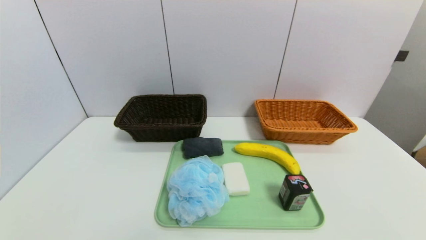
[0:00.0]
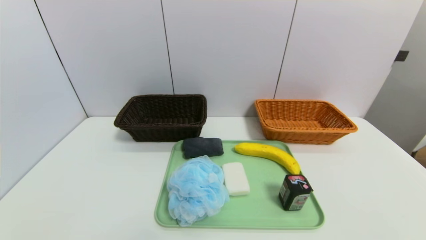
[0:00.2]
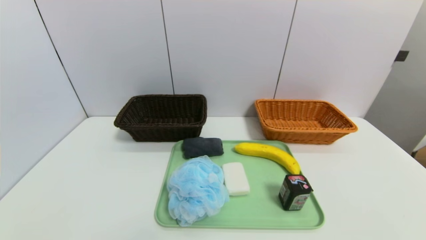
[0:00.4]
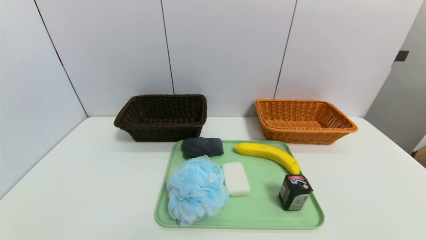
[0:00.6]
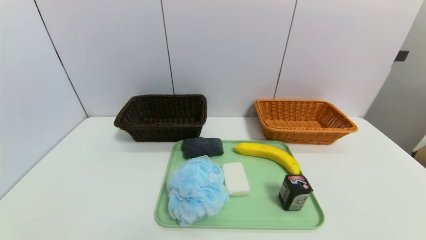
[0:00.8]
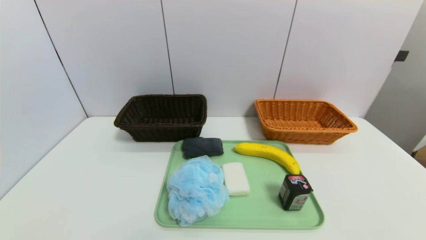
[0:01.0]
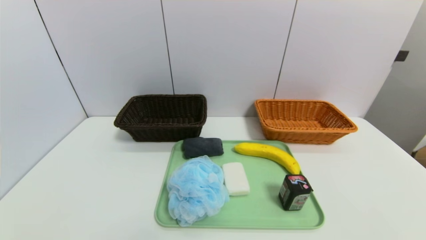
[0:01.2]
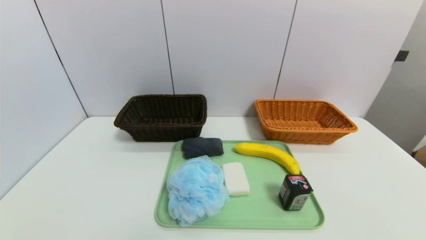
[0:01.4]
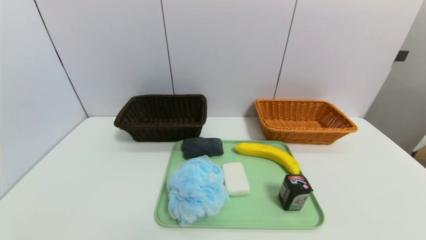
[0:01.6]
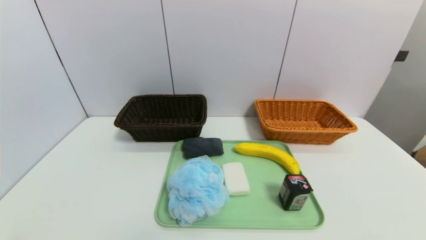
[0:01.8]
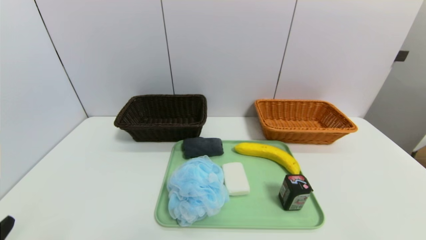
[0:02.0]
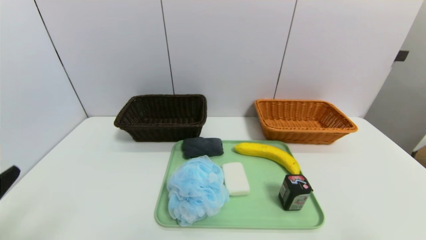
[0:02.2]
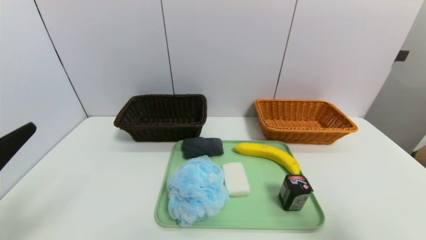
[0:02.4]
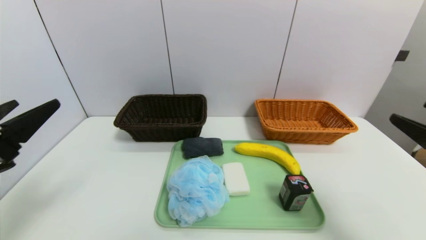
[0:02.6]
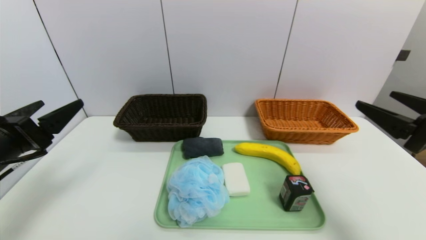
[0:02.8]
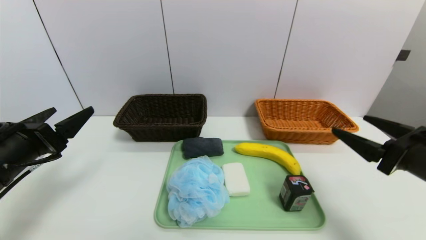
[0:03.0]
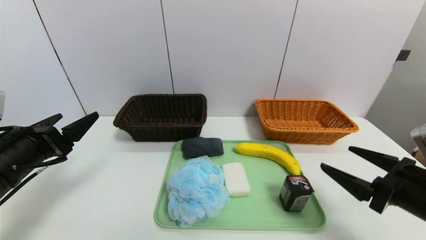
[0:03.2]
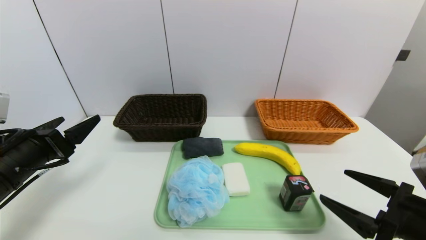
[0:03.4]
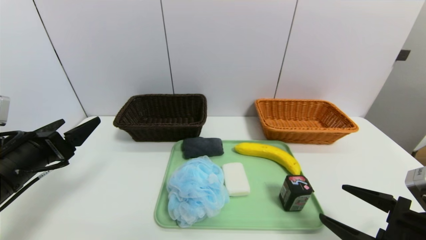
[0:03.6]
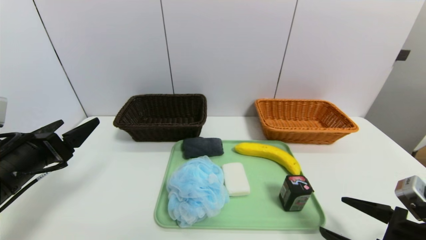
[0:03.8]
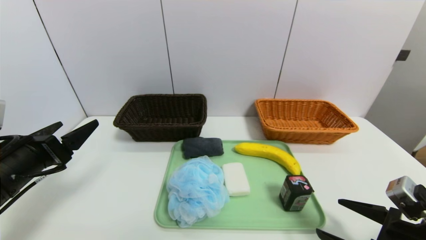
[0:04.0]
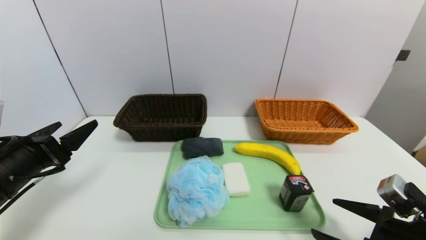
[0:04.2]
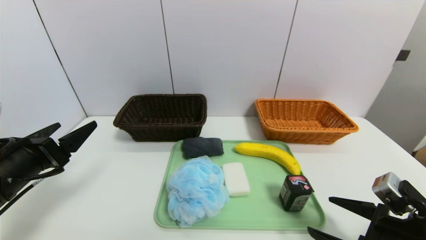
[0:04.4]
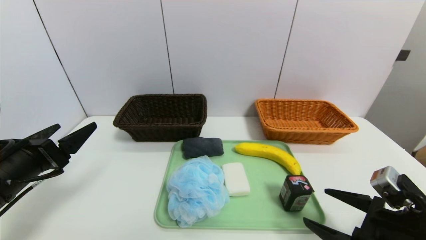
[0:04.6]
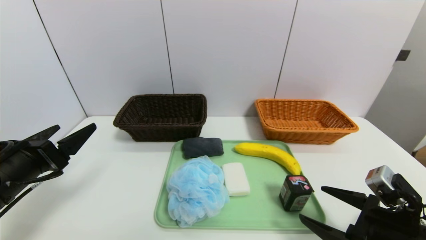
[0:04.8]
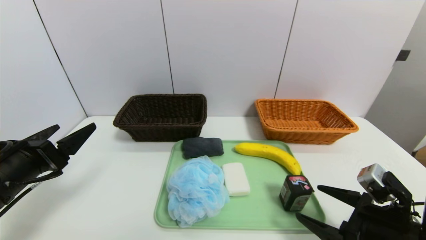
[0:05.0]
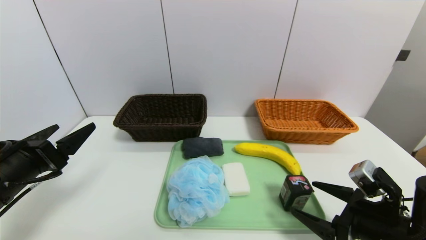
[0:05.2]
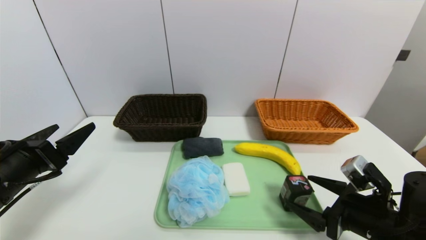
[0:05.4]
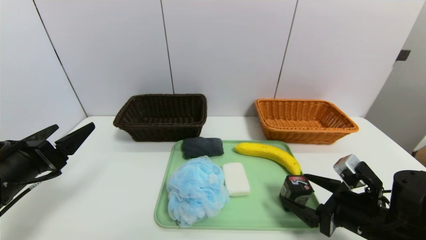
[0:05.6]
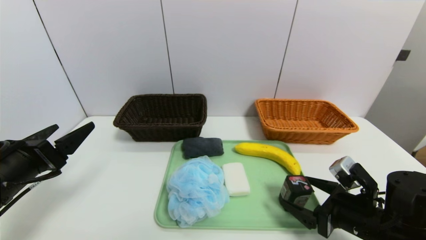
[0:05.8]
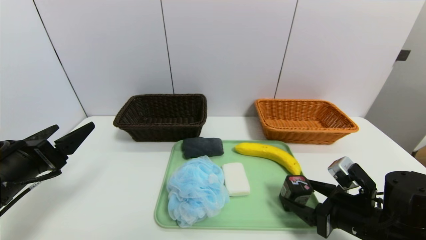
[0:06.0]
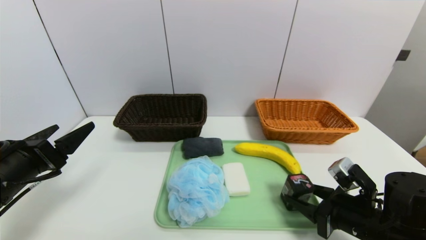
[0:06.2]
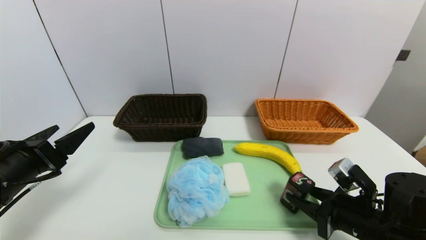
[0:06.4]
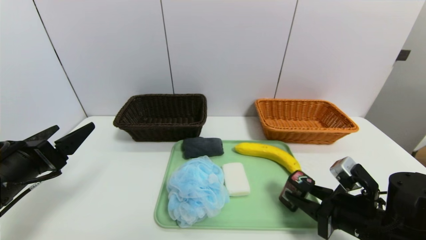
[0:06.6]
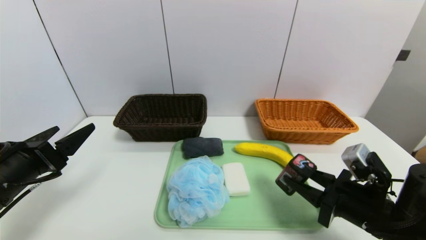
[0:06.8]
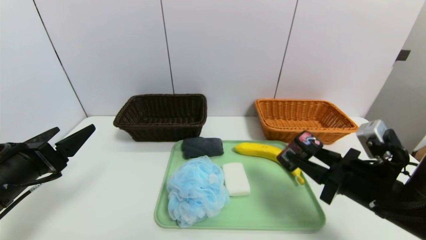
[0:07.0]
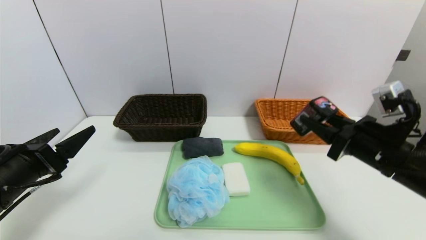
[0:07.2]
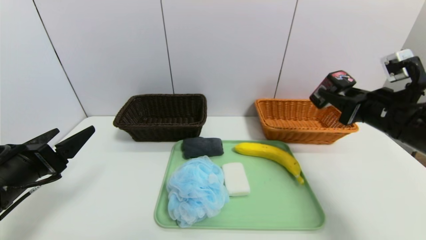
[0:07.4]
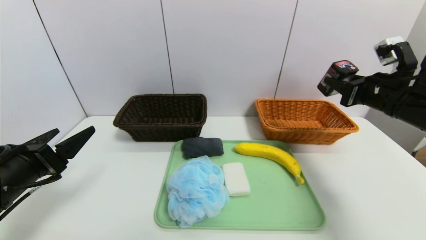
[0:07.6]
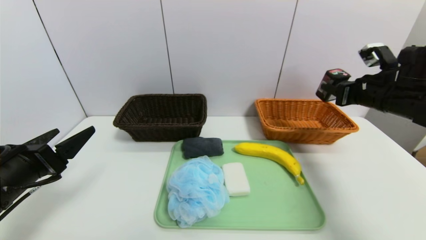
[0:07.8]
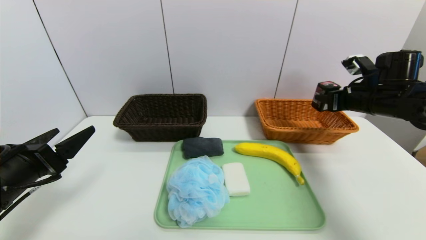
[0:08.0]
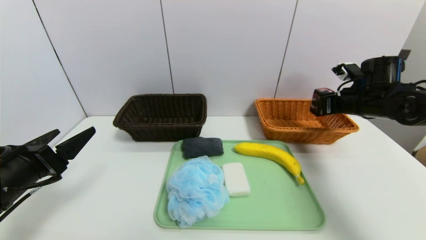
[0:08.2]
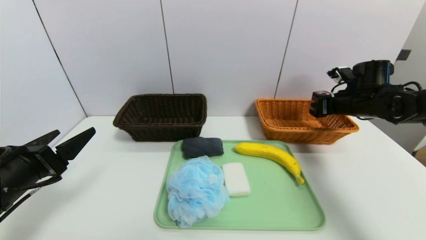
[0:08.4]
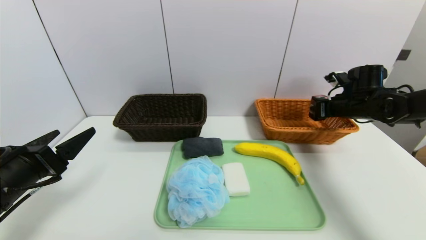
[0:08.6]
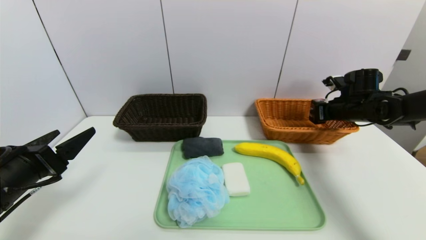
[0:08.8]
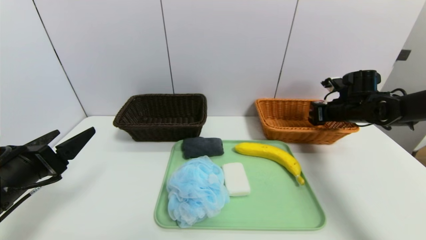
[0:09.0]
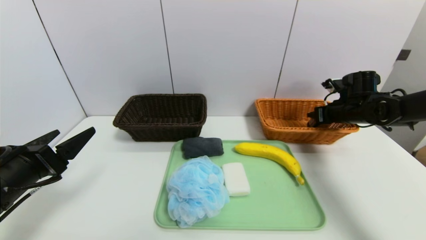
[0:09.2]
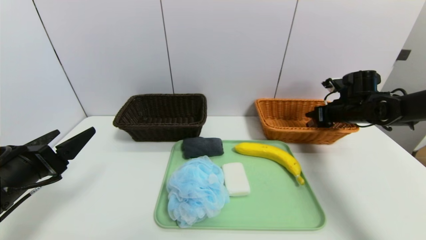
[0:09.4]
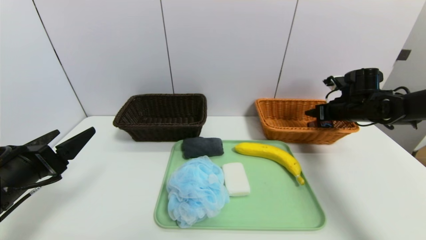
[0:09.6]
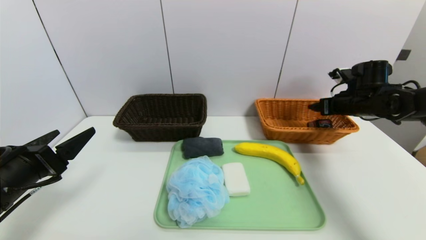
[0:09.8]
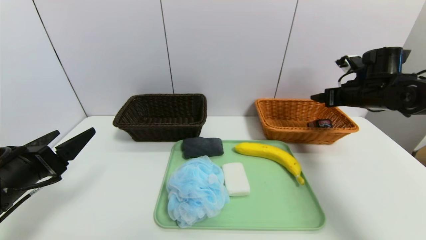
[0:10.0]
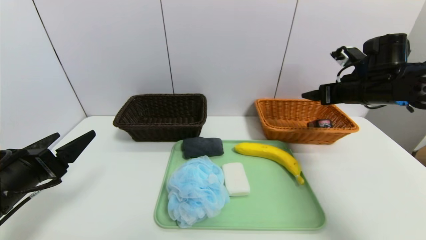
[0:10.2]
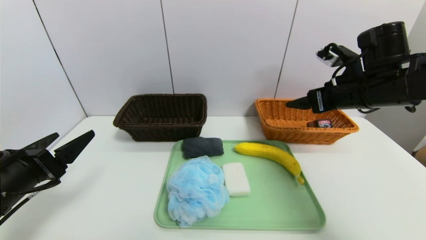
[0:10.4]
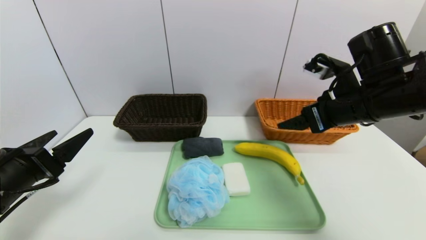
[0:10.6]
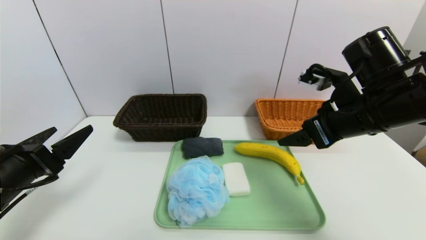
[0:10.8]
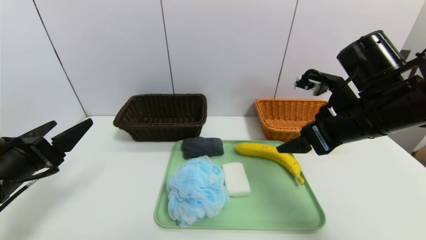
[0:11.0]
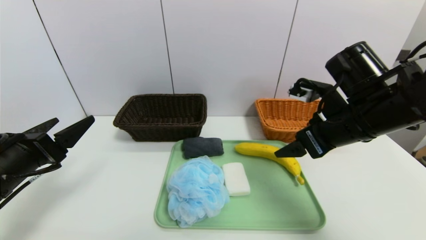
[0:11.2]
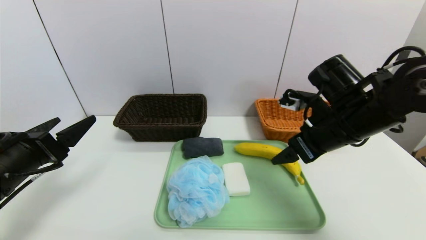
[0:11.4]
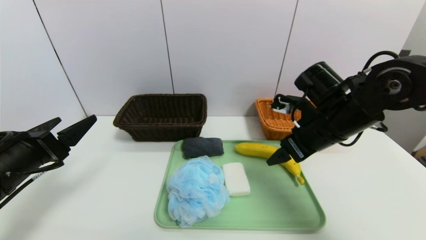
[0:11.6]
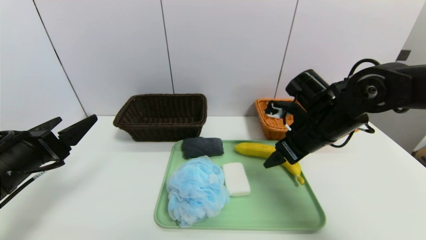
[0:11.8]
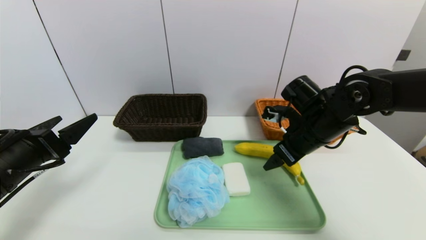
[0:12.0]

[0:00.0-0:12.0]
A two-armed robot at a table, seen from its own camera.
Task of the whole recording: place the food in the right basket with the right gripper, and place the non food items in the left basket with the left gripper.
Step, 0:00.0 to 0:09.8: Grasp the square chewing gum and put it in the right basket.
0:01.6 to 0:03.0: The left gripper shifts approximately 20 cm forward and upward. The right gripper goes roughly 20 cm forward.
0:03.0 to 0:04.4: The right gripper moves downward, some 10 cm.
0:04.4 to 0:06.0: The right gripper moves forward, approximately 5 cm.
0:06.0 to 0:07.6: The right gripper goes roughly 20 cm upward, forward and to the right, and closes up.
0:07.6 to 0:09.0: The right gripper travels forward and downward by some 15 cm.
0:09.0 to 0:10.4: The right gripper travels backward, upward and to the left by roughly 20 cm, and opens up.
0:10.4 to 0:12.0: The right gripper shifts roughly 10 cm downward and to the left.

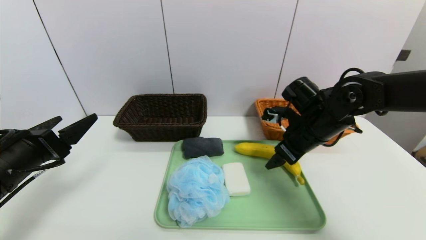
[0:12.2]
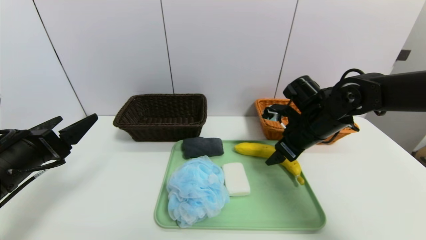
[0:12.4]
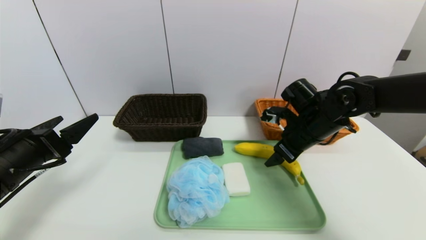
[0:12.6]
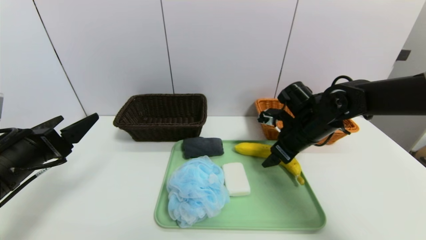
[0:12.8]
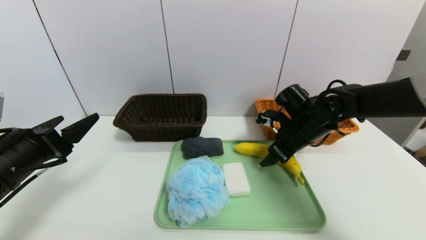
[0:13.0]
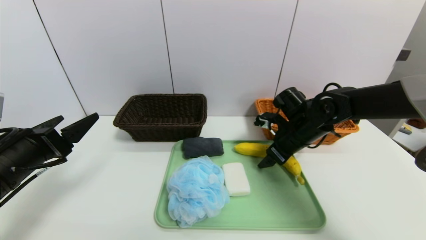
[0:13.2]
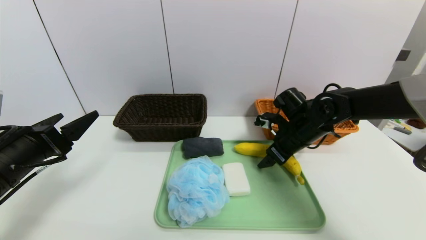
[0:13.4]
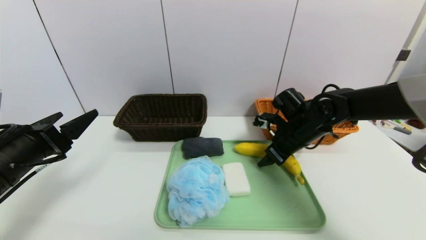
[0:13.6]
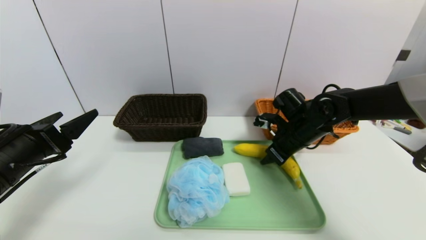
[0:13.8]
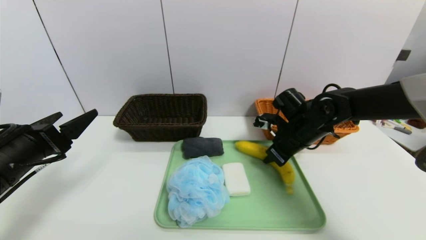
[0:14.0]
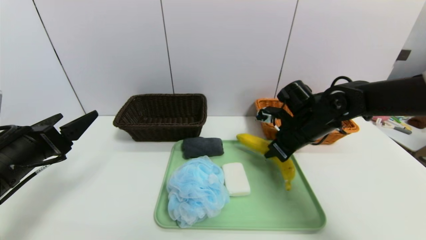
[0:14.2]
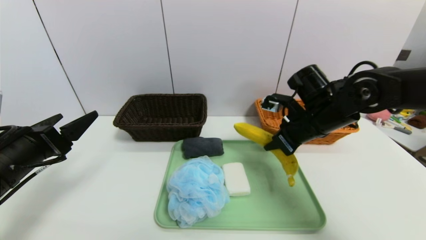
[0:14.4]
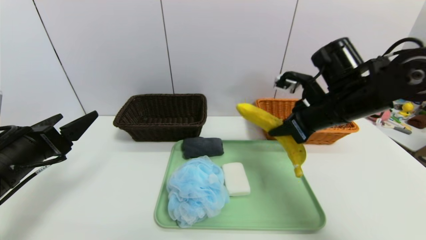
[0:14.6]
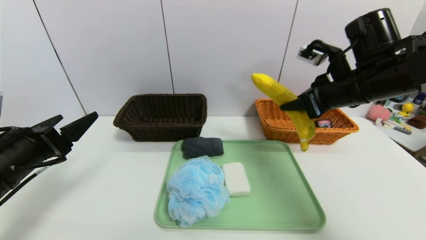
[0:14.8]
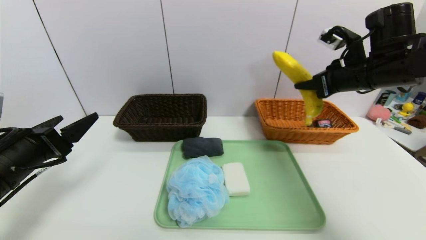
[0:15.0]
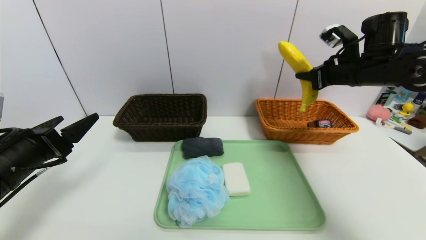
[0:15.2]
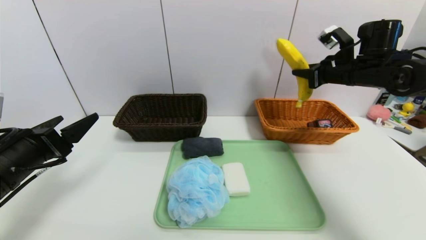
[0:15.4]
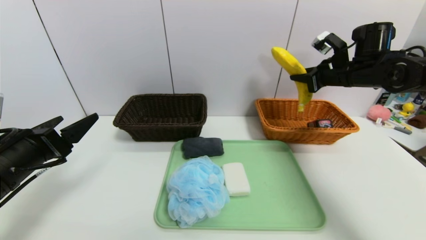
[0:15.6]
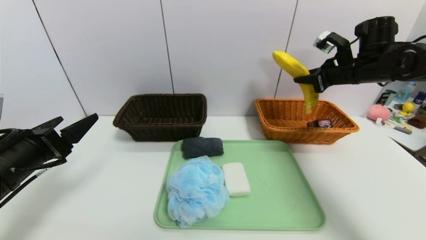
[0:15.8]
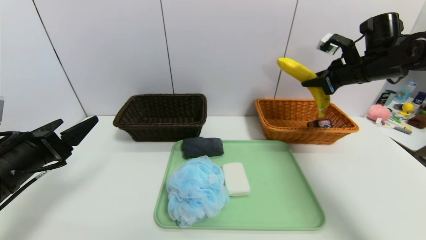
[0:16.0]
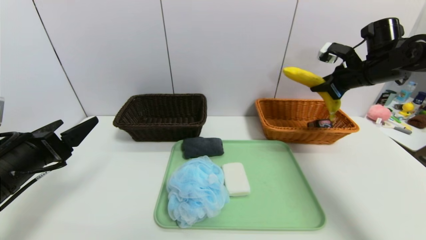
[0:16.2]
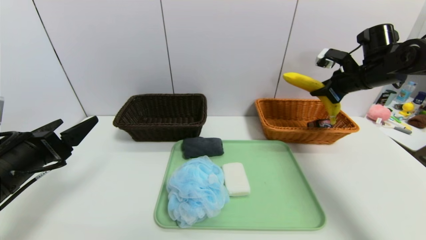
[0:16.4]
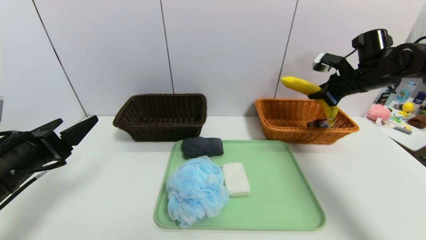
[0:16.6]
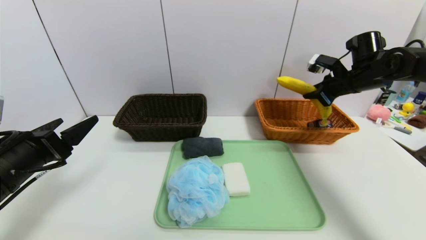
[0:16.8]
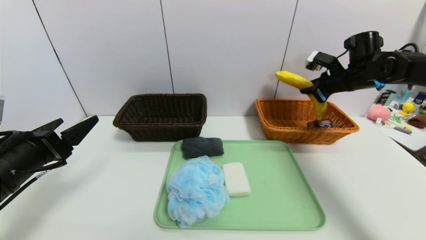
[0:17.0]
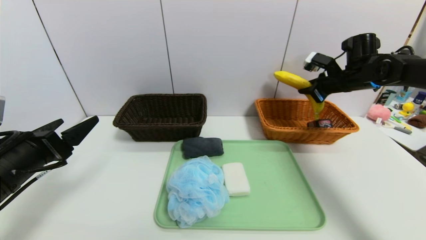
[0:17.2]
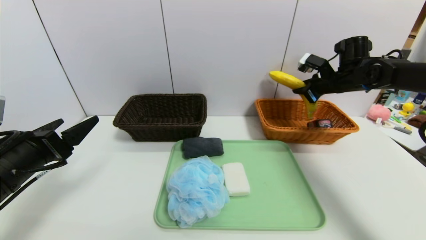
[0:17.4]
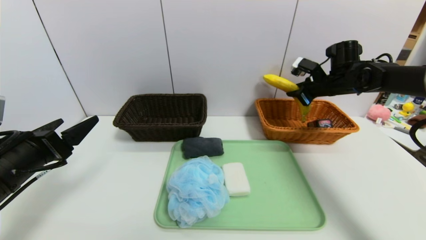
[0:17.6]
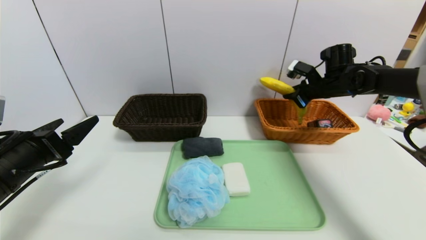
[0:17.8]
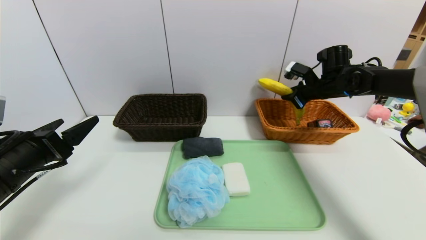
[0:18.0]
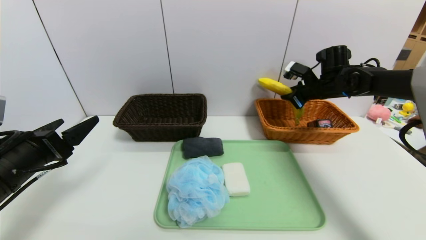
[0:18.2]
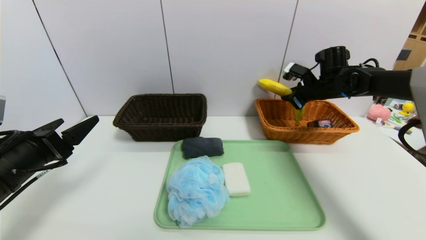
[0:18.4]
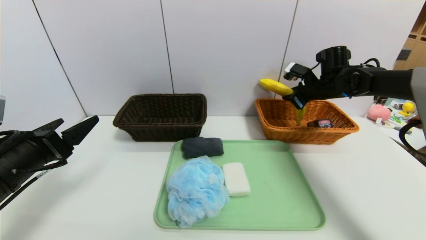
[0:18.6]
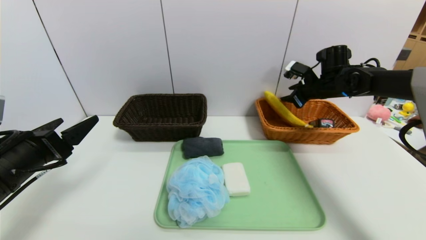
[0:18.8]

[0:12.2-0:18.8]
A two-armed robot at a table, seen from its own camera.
Task of the whole recording: place the food in the right basket with the right gripper, and place the non food items in the left basket with the left gripper.
0:12.2 to 0:13.8: The right gripper changes place by approximately 5 cm, and closes its fingers.
0:13.8 to 0:15.4: The right gripper shifts some 15 cm upward and to the right, and closes its fingers.
0:15.4 to 0:17.2: The right gripper shifts by about 5 cm.
0:17.2 to 0:18.8: The right gripper opens its fingers.
